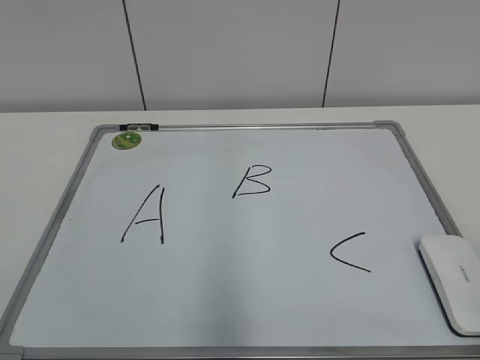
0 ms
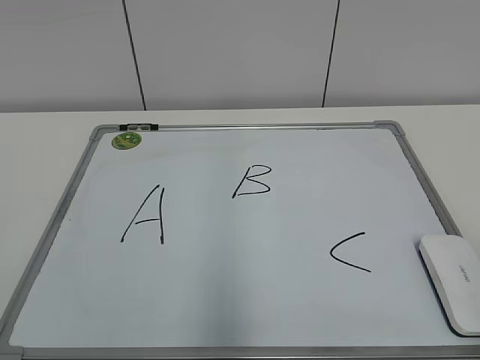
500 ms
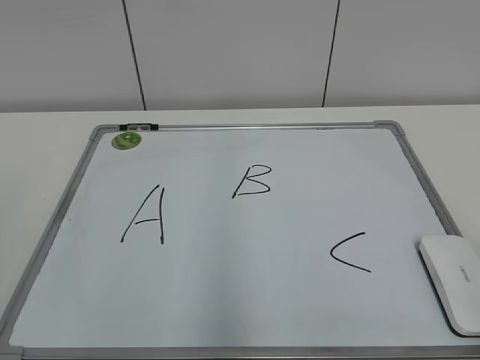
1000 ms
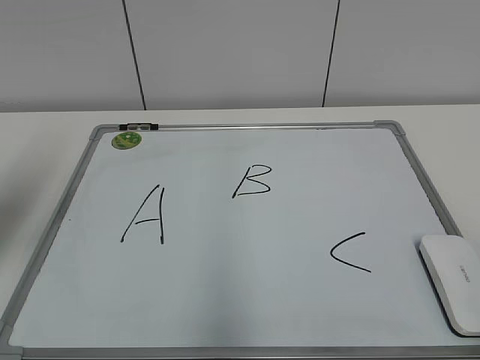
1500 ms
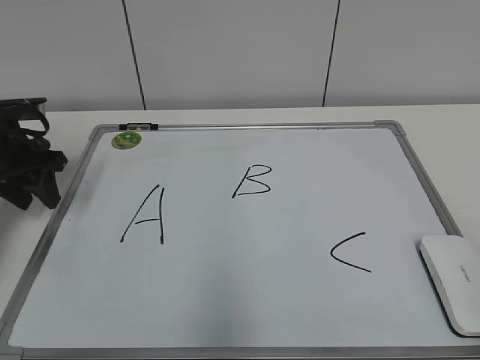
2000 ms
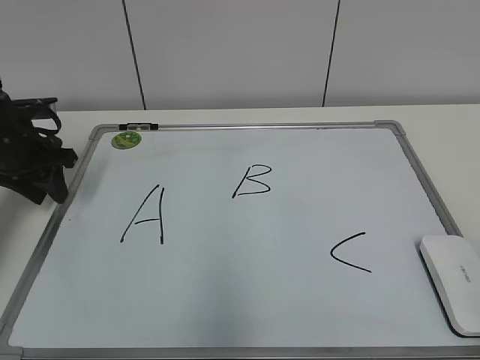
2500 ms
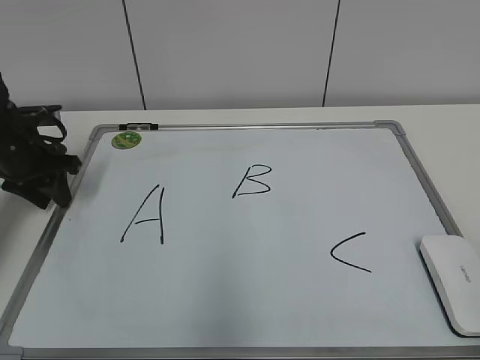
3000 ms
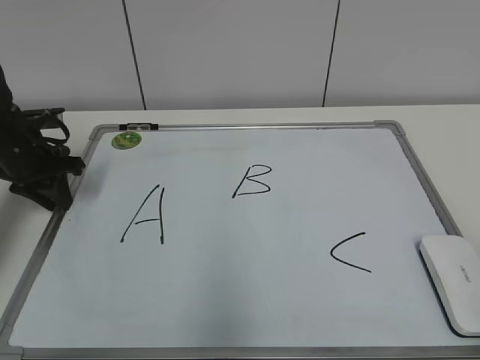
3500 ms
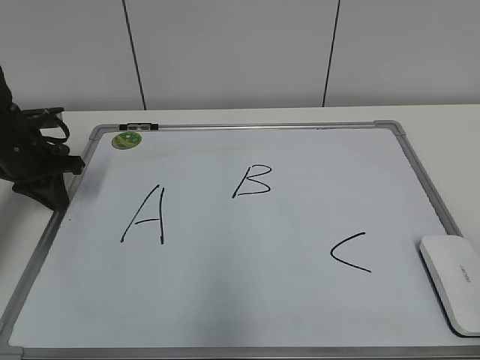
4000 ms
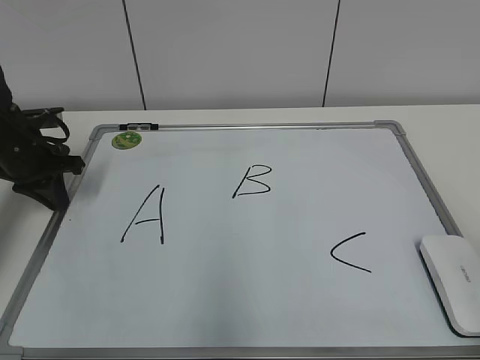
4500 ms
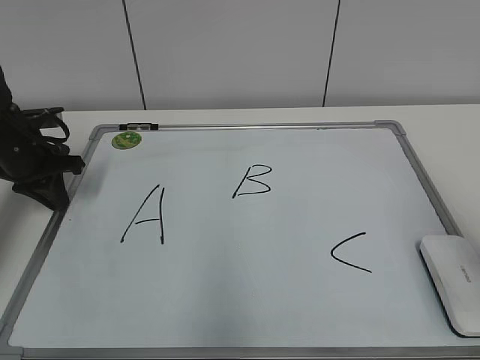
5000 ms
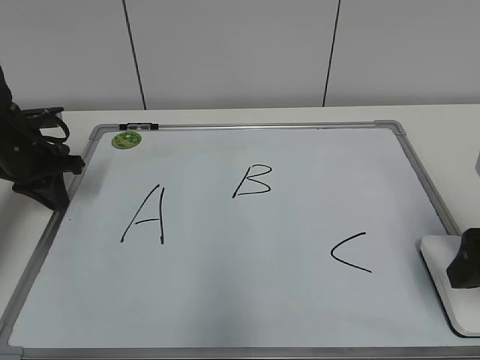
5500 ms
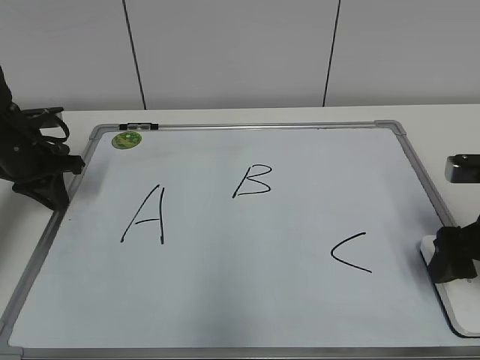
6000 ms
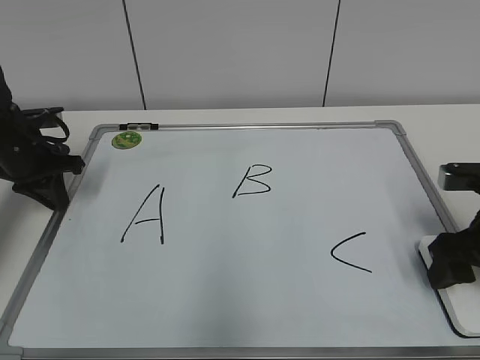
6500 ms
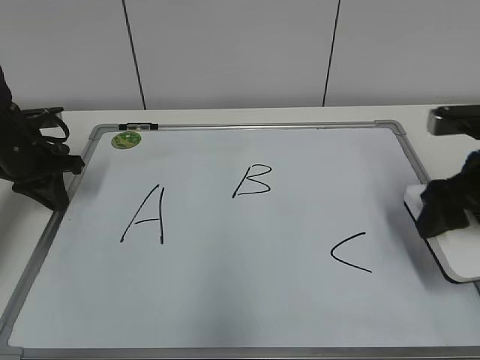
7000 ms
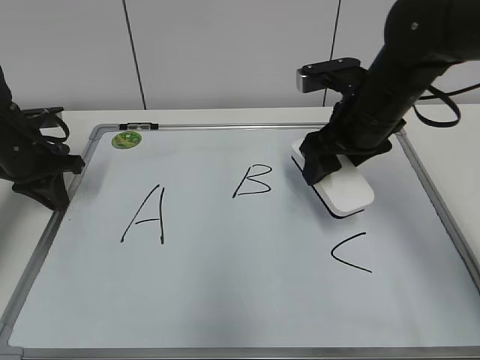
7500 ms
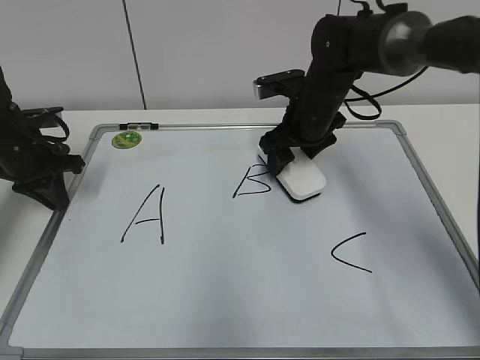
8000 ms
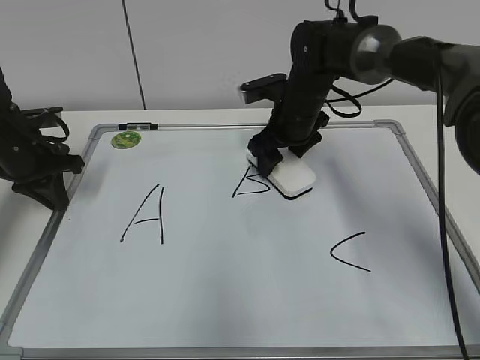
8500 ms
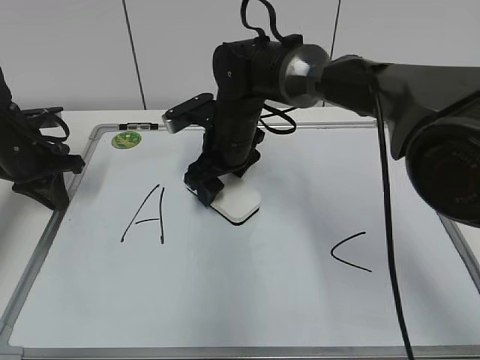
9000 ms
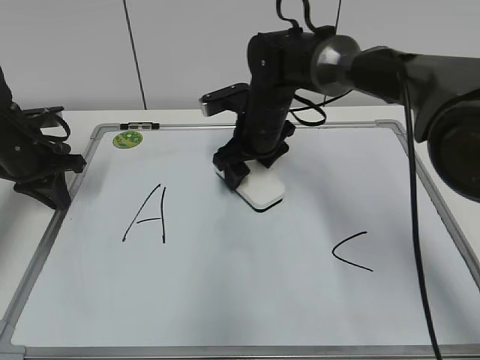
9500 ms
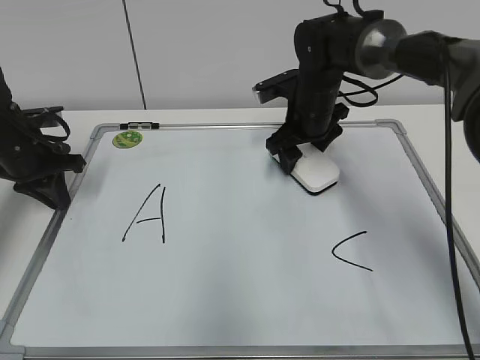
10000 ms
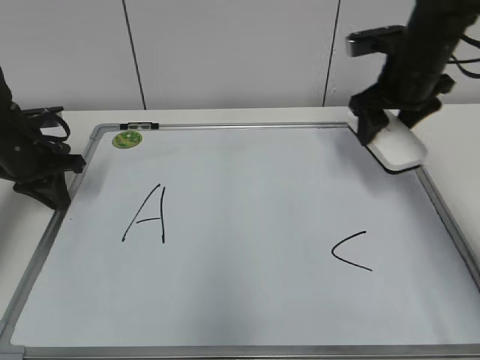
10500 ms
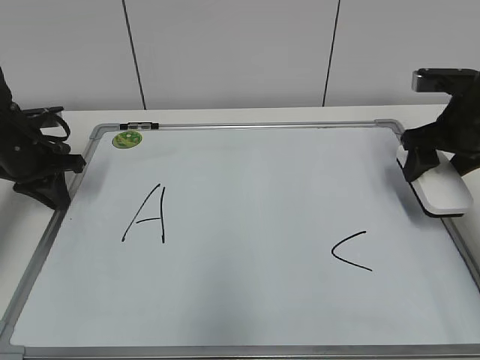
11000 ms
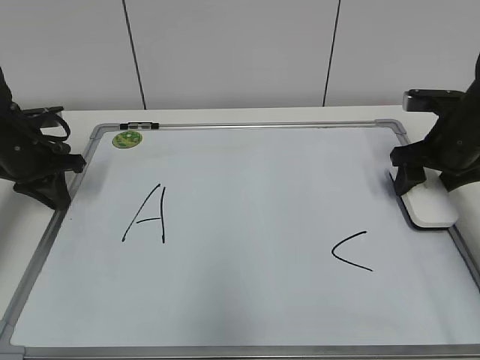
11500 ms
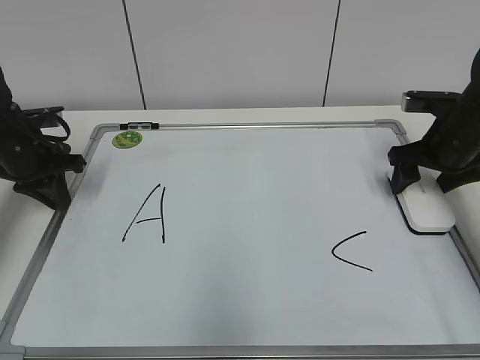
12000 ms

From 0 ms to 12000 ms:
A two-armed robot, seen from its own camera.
Task of the whole recording: pick up the eraser on the blackboard and erase the letter "B".
Step, from 0 ms to 4000 ms: Hold the drawing board steady with your left hand.
Step, from 5000 ms to 6500 ms: Grab the eraser with your right hand.
Step, from 7000 ms to 9500 ms: Erase the letter B with your right hand.
Step, from 10000 ms to 11500 ms: Put down the eraser with your right hand.
From 2000 ms to 4000 ms: The left gripper shifts by roughly 5 cm, and closes up.
From 4000 ms to 6000 ms: The right gripper goes about 30 cm forward and downward, and opens up.
From 6000 ms to 8000 ms: The right gripper travels forward and to the left by some 25 cm, and closes its fingers.
From 8000 ms to 10000 ms: The right gripper goes to the left and returns, roughly 10 cm each way.
From 10000 ms to 12000 ms: The right gripper goes roughly 20 cm to the right and backward, and opens its fingers.

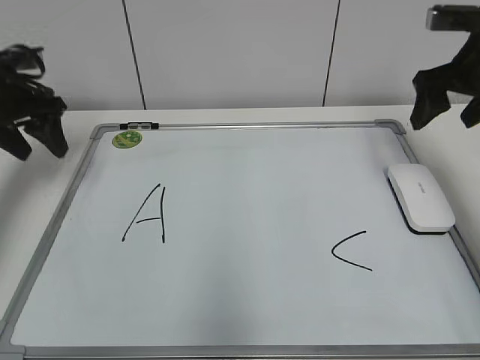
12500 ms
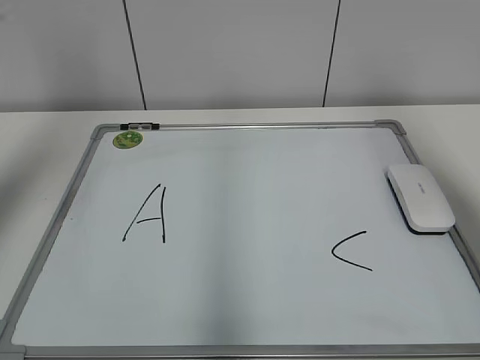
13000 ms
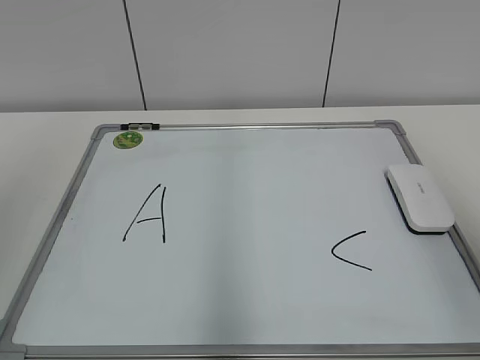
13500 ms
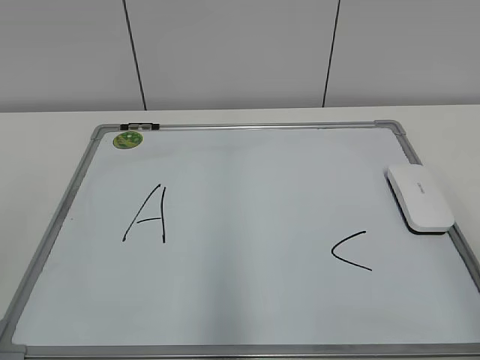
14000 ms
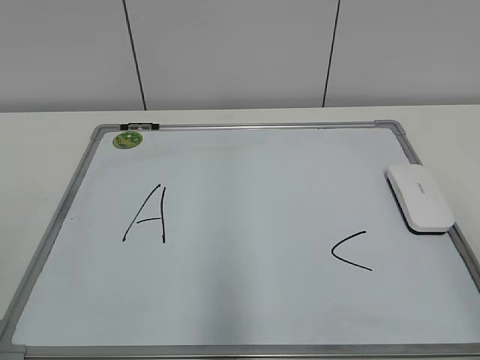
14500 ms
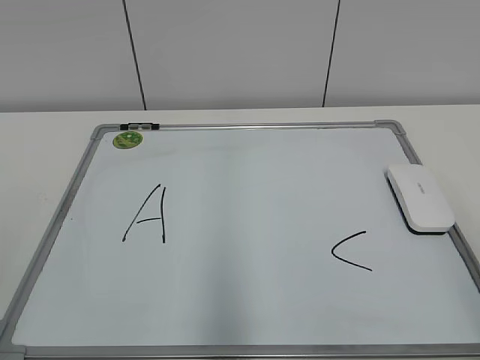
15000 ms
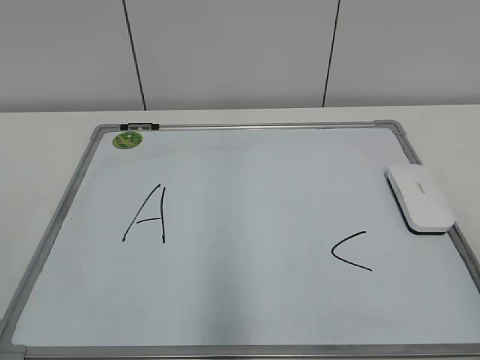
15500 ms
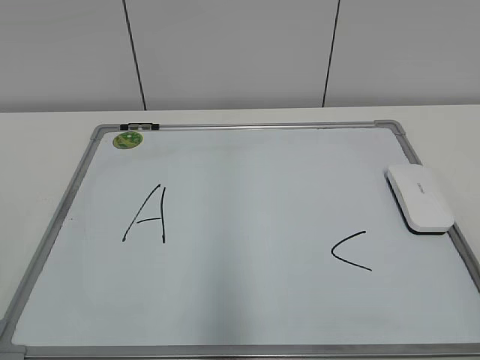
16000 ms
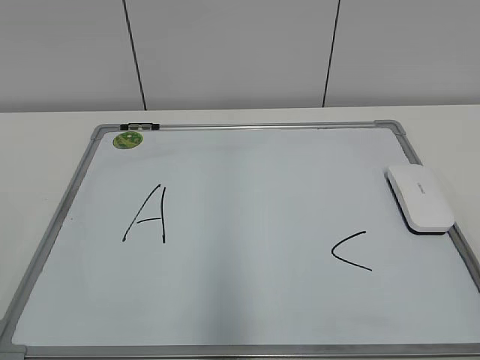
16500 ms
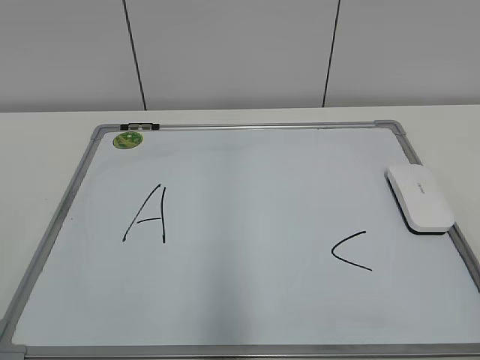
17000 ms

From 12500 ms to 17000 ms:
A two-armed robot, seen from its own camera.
Task of the whole recording: pick up the eraser on the blackboard and erase the letter "B".
From 12500 ms to 14500 ms: Both grippers travel together backward, about 35 cm.
